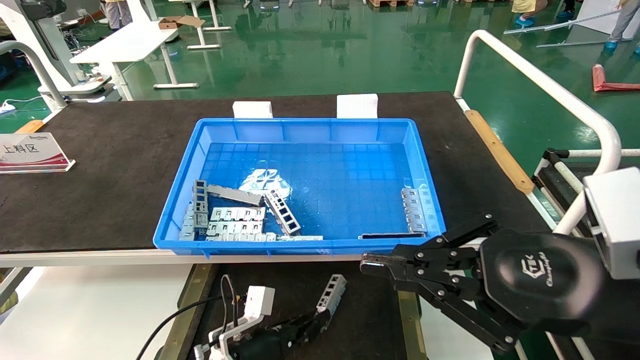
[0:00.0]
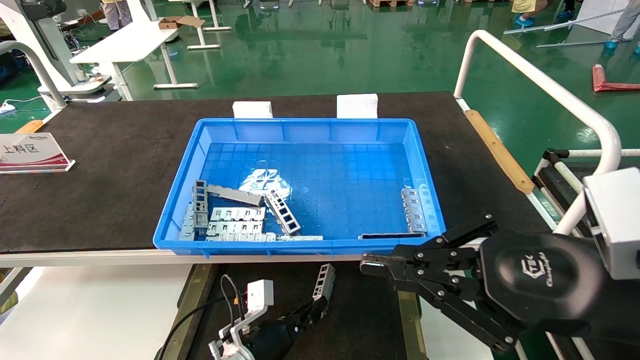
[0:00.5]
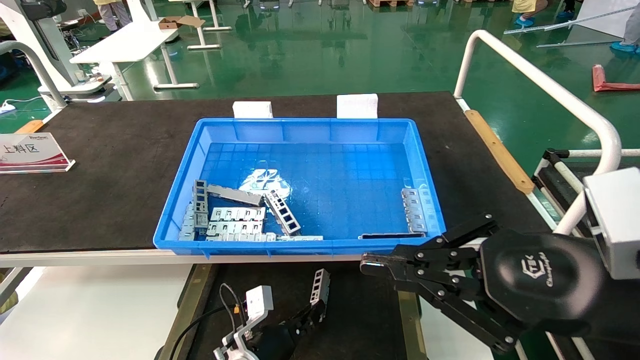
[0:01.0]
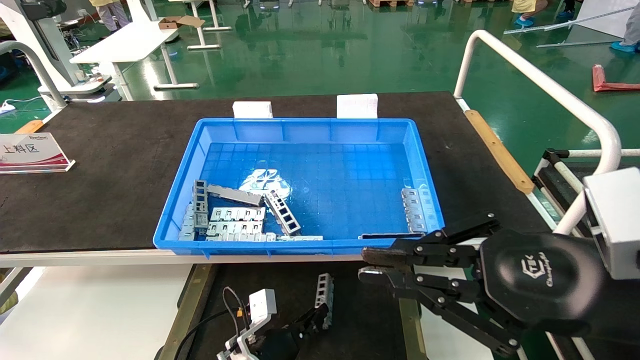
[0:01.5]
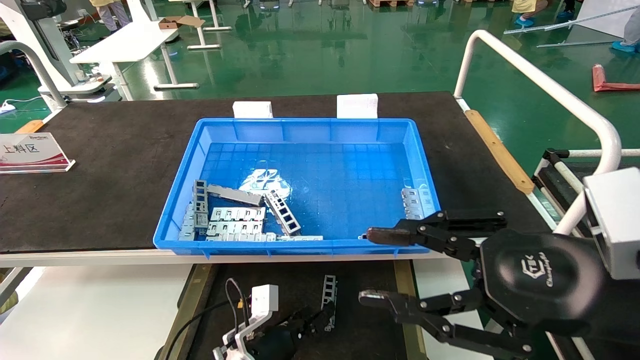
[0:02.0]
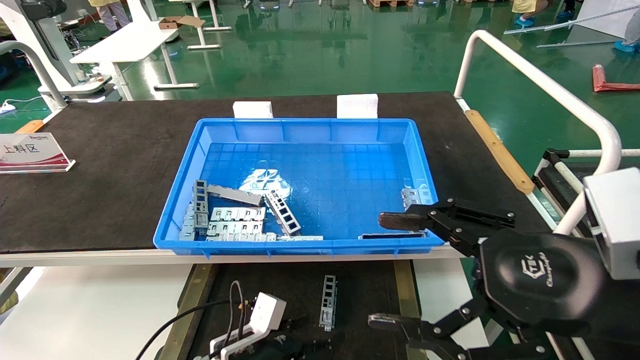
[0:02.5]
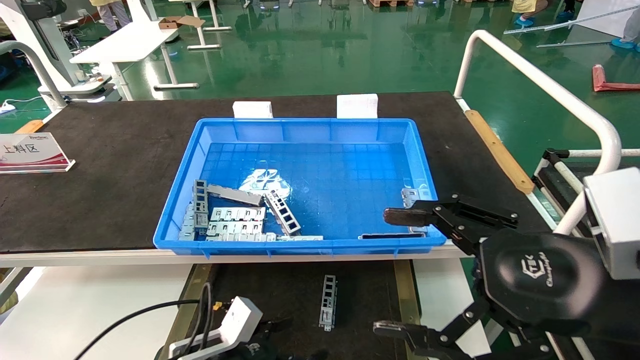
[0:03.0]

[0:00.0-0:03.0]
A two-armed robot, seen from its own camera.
Task of the whole recording: Grasp the part with one hand and place it on the black container.
0:00.0 to 0:01.5: The grippers move only a little.
0:01.5 to 0:03.0: The right gripper opens its fingers. The left gripper heads to the left, backward and upward, covering approximately 15 cm, and opens.

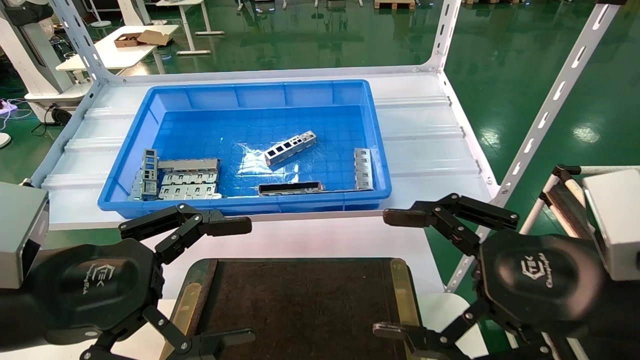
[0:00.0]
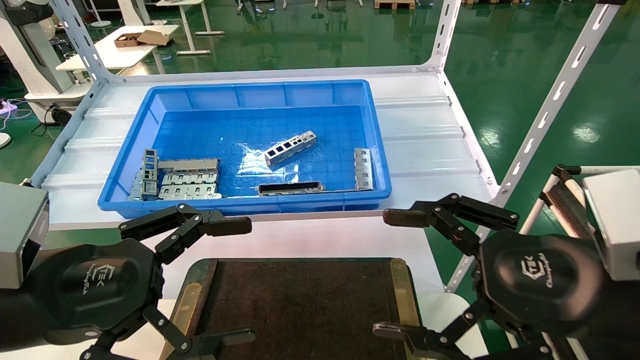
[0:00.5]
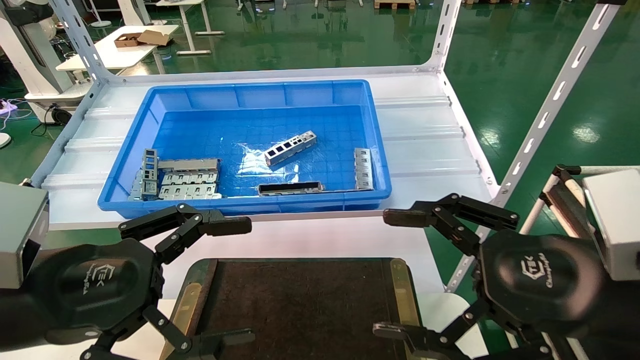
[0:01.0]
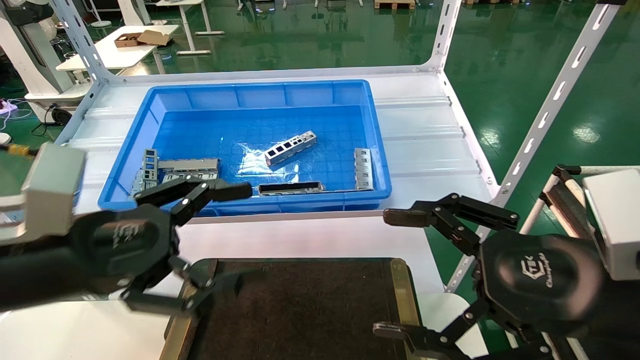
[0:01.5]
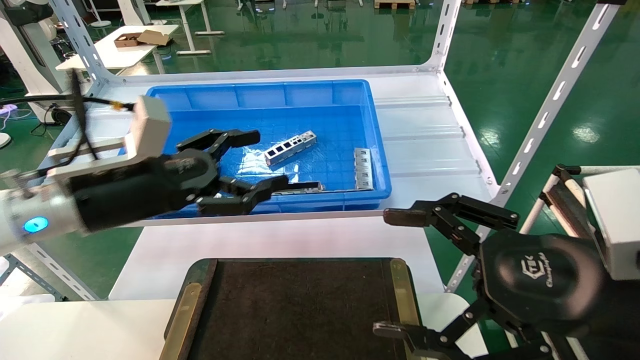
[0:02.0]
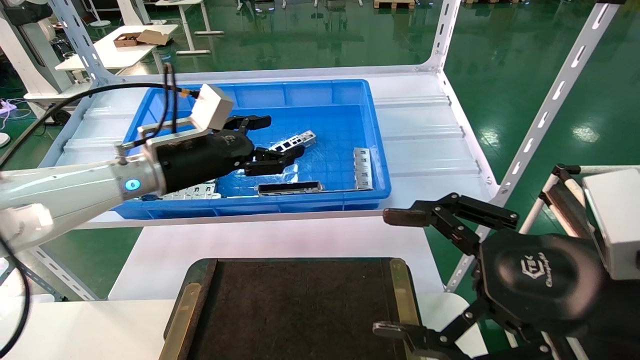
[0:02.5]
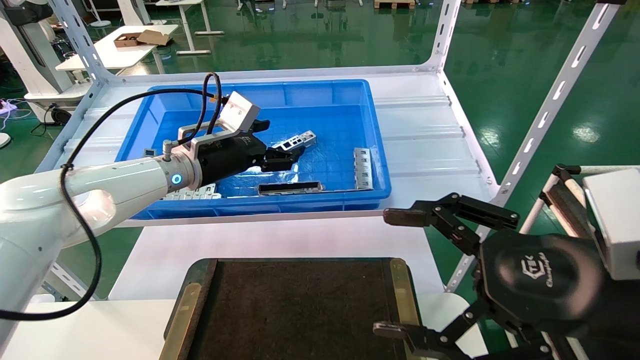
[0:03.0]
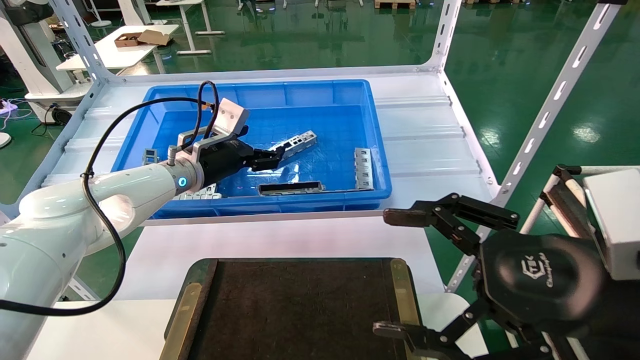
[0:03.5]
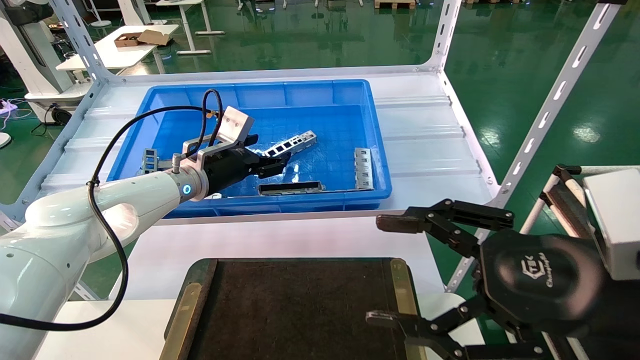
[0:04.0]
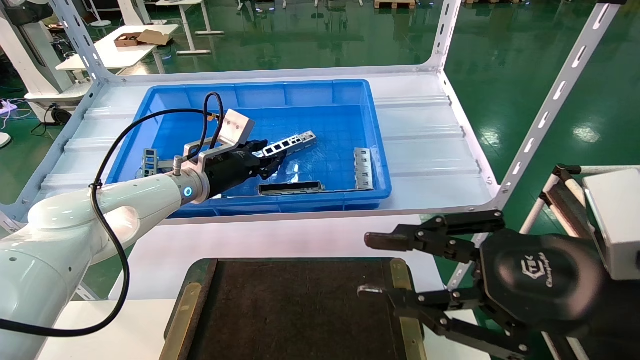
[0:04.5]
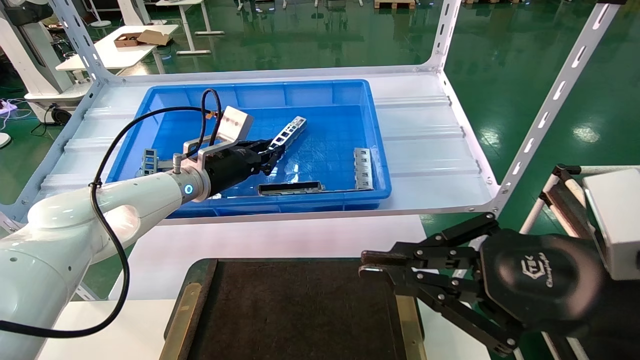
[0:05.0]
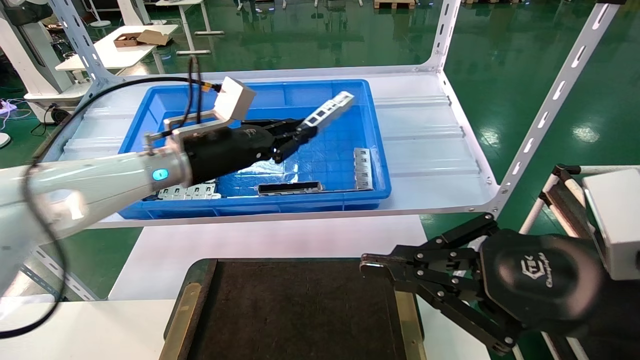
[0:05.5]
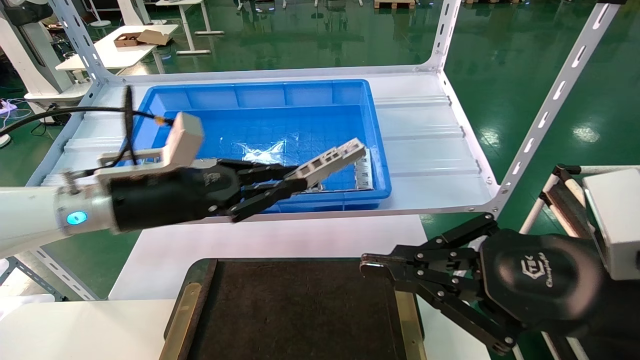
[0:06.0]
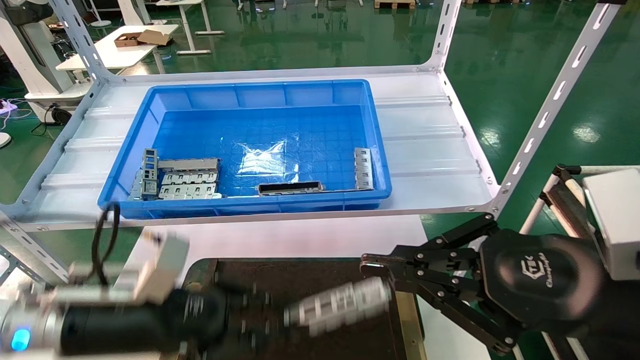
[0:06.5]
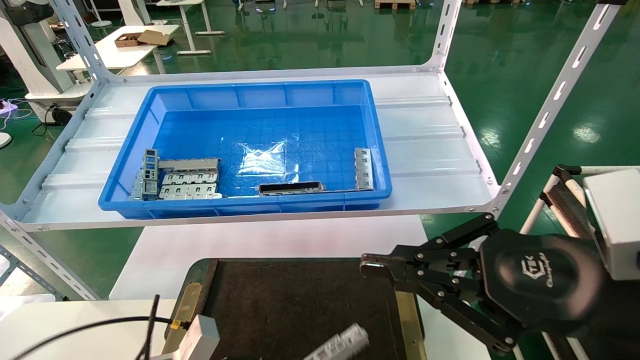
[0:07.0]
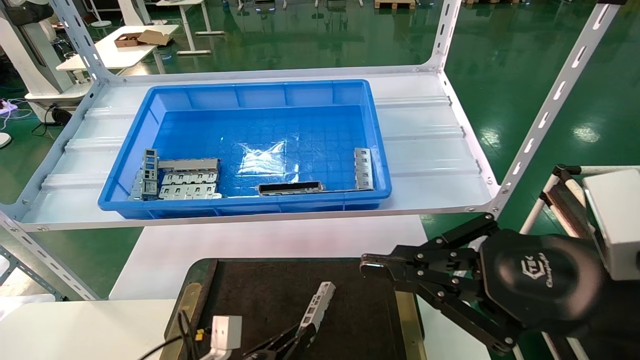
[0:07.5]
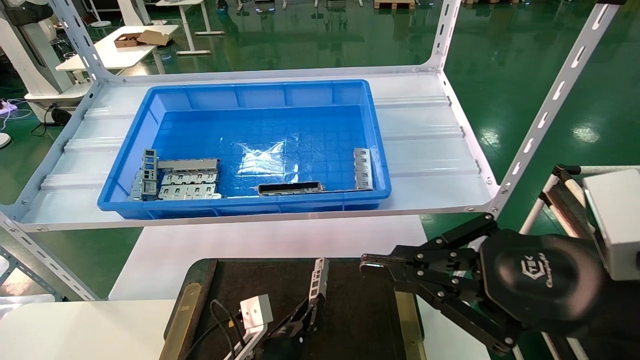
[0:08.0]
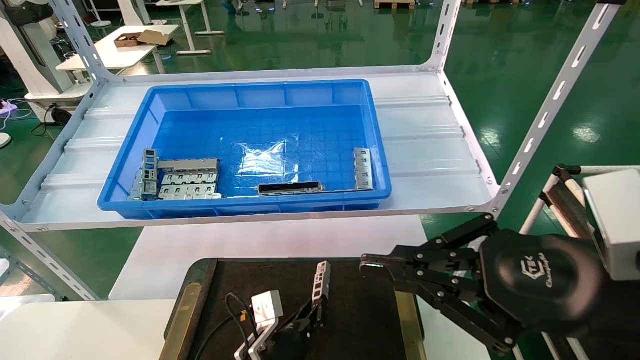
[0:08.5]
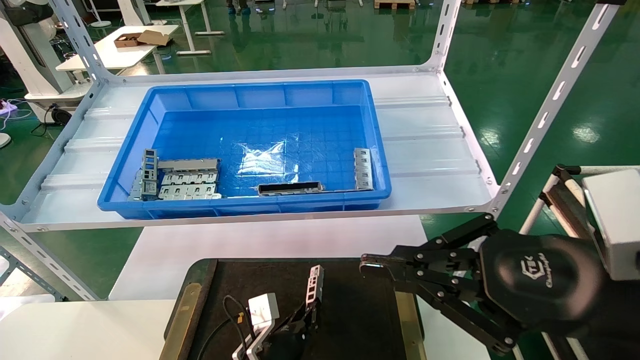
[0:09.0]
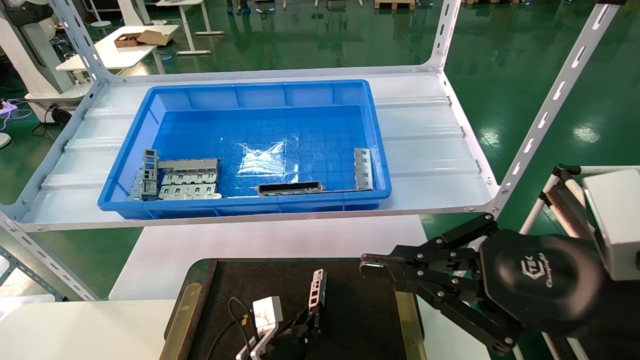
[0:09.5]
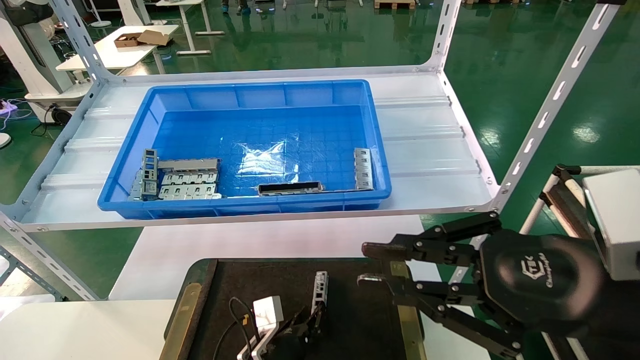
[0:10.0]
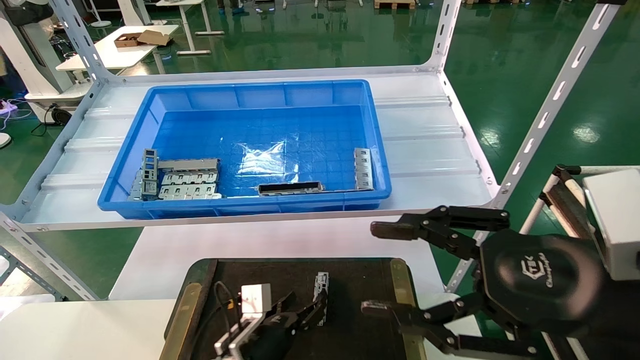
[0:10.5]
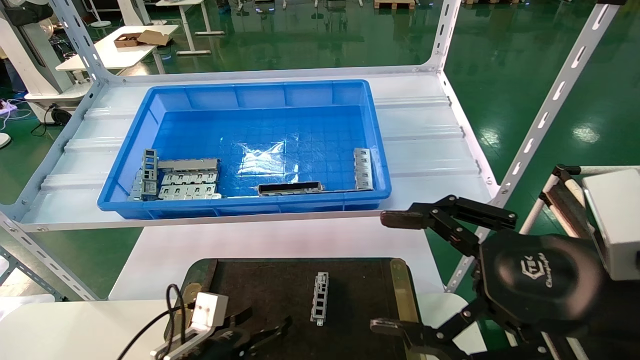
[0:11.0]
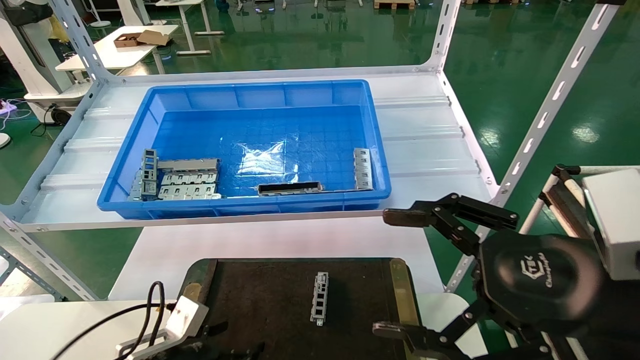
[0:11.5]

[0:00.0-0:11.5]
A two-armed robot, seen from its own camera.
Task of the whole recording: Grasp the part with one hand and place it on the black container.
Step, 0:01.5 to 0:05.0: Pick up the front USB bracket from the feeding area.
Step, 0:05.5 to 0:10.0: Place the front USB bracket into the box.
0:00.0 to 0:02.0: The left gripper travels forward by about 15 cm.
0:02.0 to 0:04.0: The left gripper travels forward by some 15 cm.
0:04.0 to 0:06.0: The left gripper travels backward by some 15 cm, and closes, while the right gripper closes up.
0:06.0 to 0:07.5: The left gripper moves downward, roughly 30 cm.
0:07.5 to 0:09.5: The left gripper heads forward and to the right, covering approximately 10 cm.
0:09.5 to 0:11.5: The left gripper heads to the left, upward and backward, covering roughly 20 cm, and opens up. The right gripper opens its fingers.
